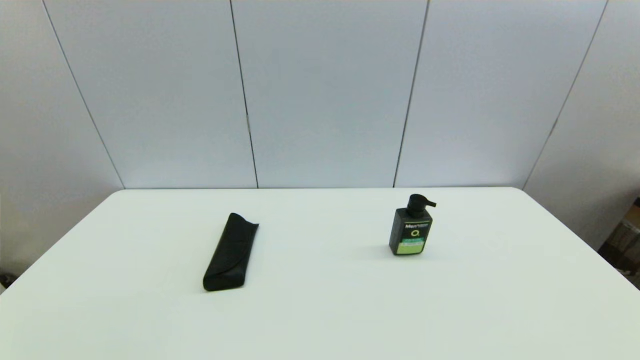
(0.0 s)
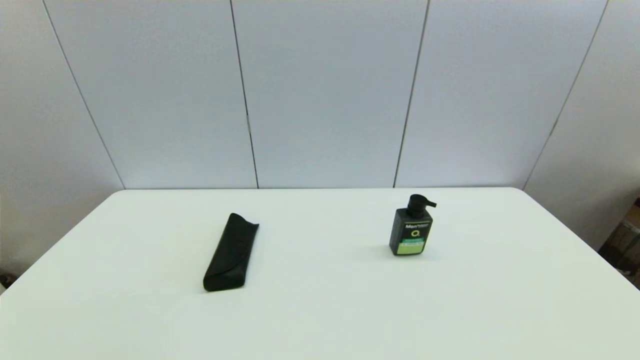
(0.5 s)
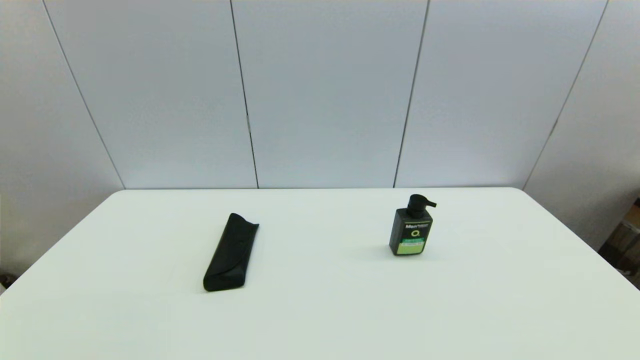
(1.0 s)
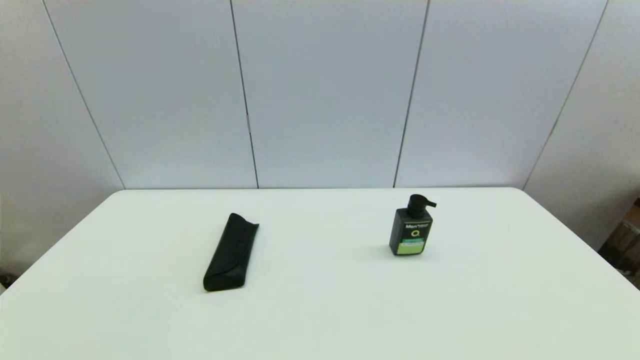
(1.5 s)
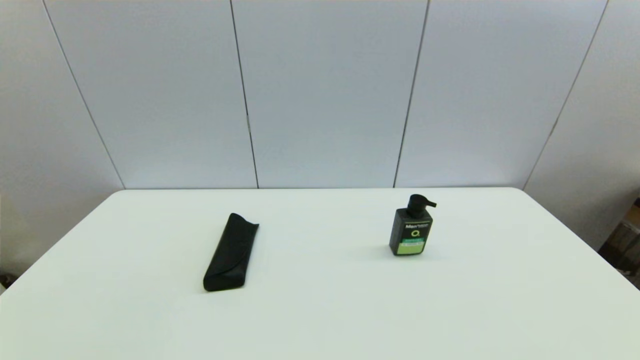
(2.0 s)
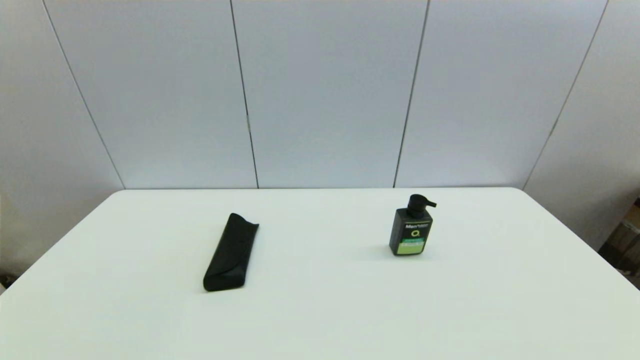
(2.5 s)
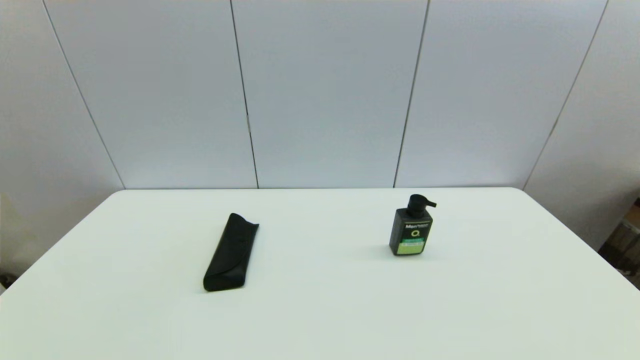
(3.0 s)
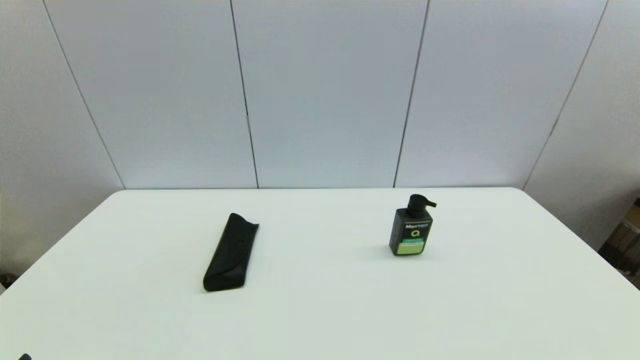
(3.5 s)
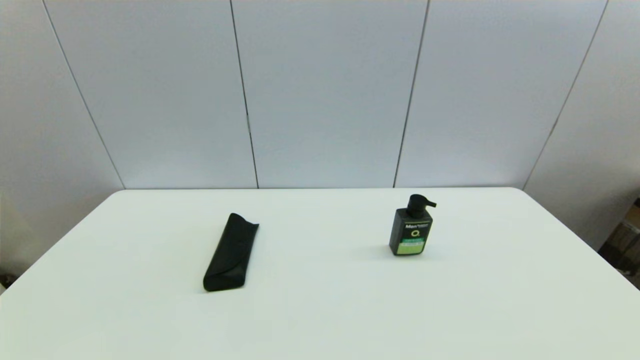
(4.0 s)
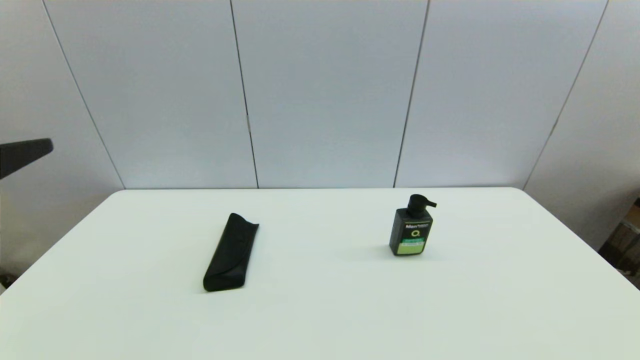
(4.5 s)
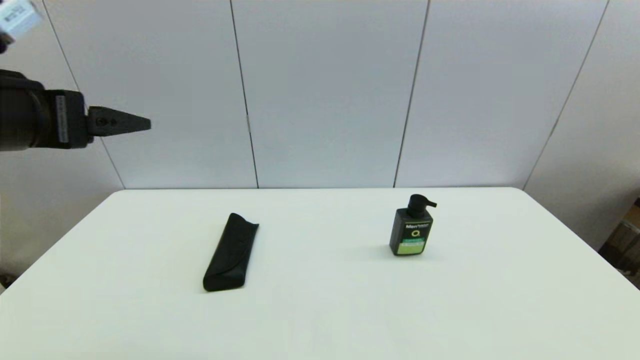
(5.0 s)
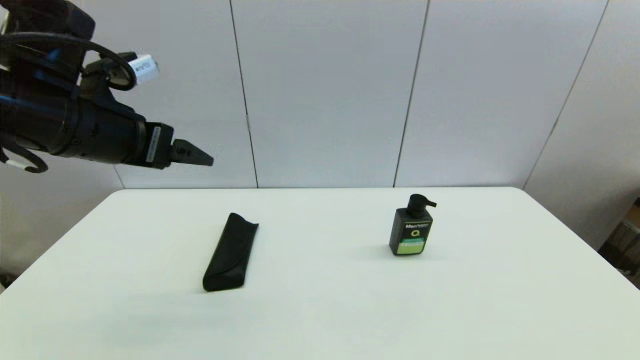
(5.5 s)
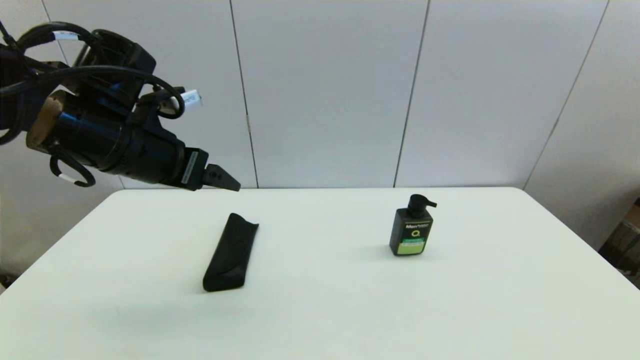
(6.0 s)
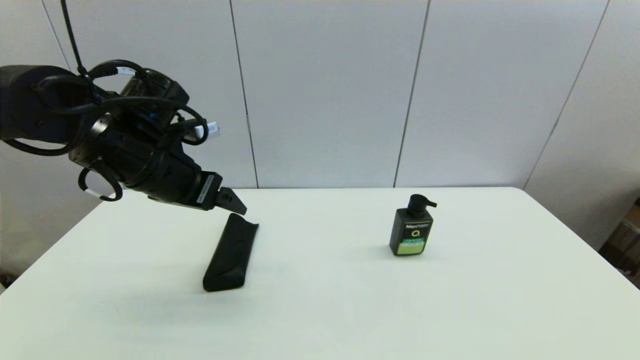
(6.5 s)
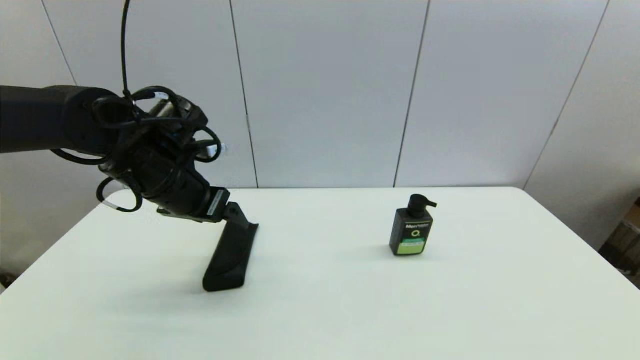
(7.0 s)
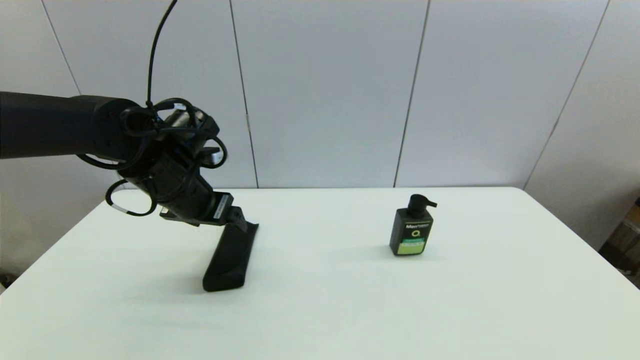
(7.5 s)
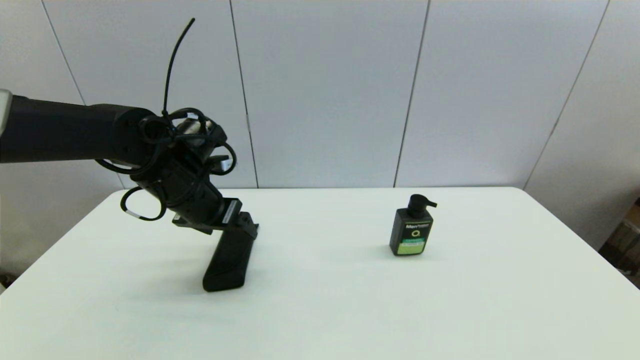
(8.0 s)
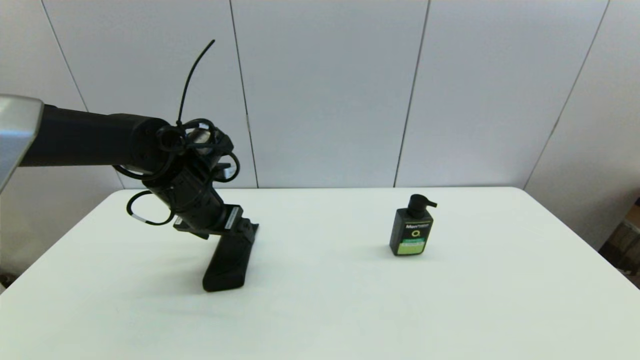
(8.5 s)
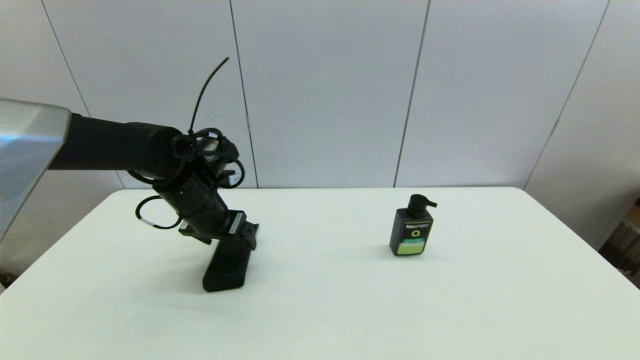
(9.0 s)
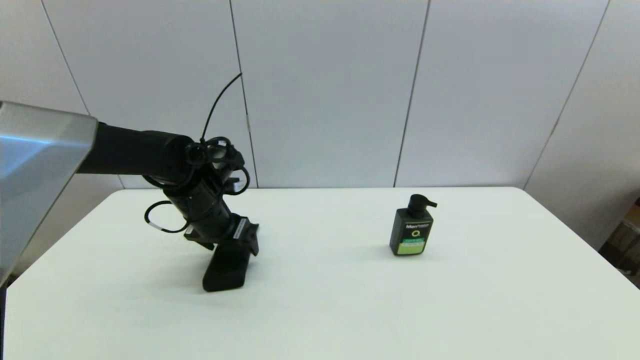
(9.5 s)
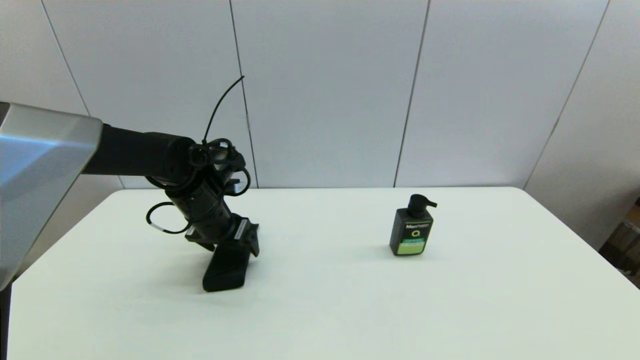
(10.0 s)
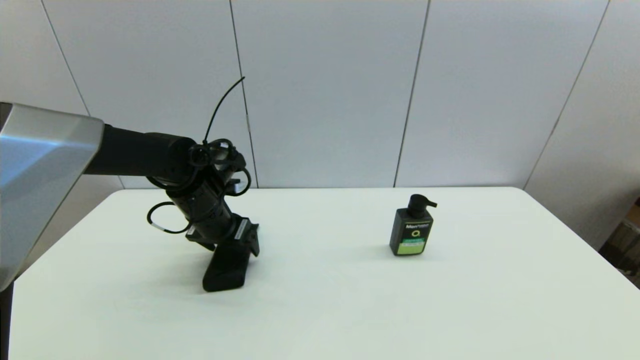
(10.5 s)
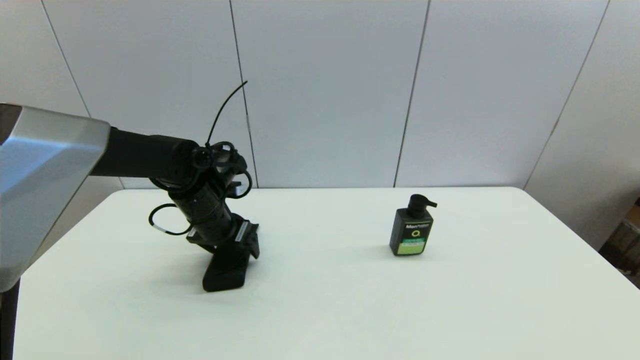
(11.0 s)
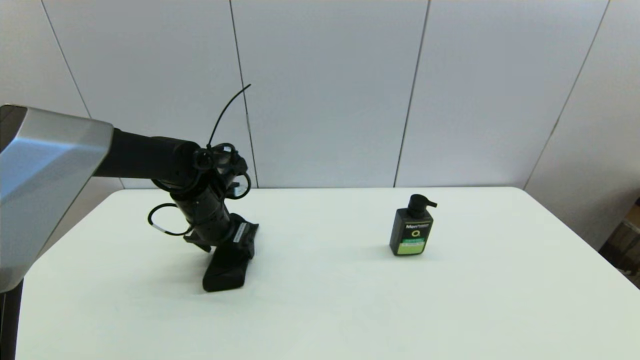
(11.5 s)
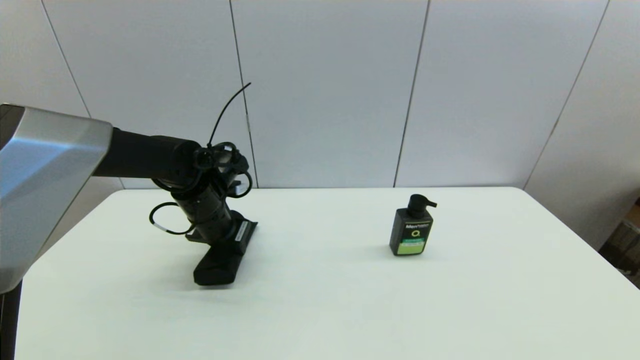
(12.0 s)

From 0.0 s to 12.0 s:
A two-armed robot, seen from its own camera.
Step, from 4.0 s to 11.5 s: Grasp the glasses case with left gripper.
From 0.0 s to 2.0 s: The two grippers keep their place.
From 4.0 s to 6.0 s: The left gripper shifts roughly 25 cm forward.
From 6.0 s to 8.0 s: The left gripper goes about 10 cm downward and forward.
From 8.0 s to 10.0 s: The left gripper goes some 5 cm downward.
From 10.0 s to 12.0 s: The left gripper closes its fingers.

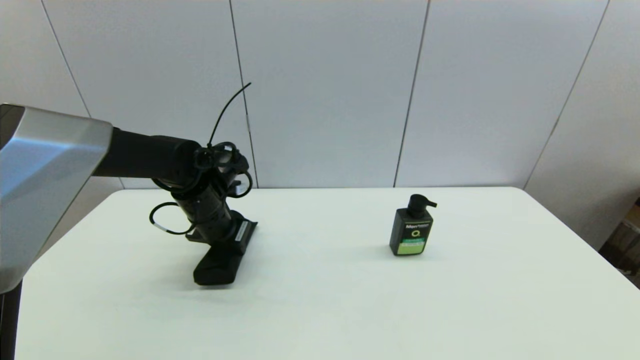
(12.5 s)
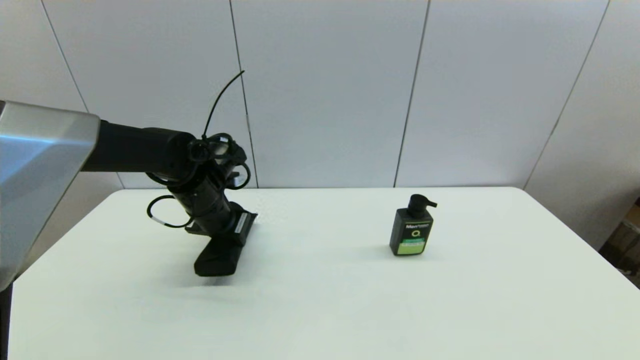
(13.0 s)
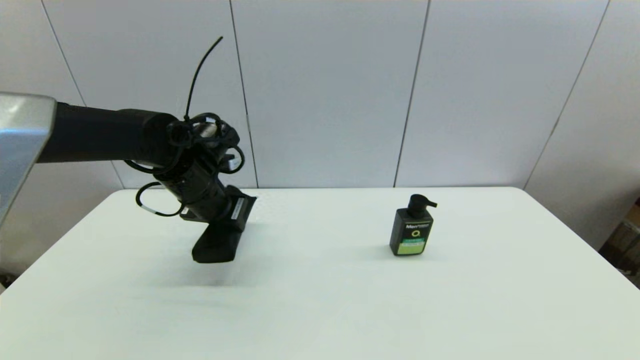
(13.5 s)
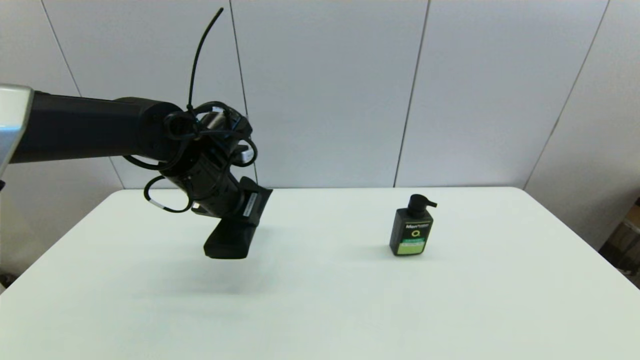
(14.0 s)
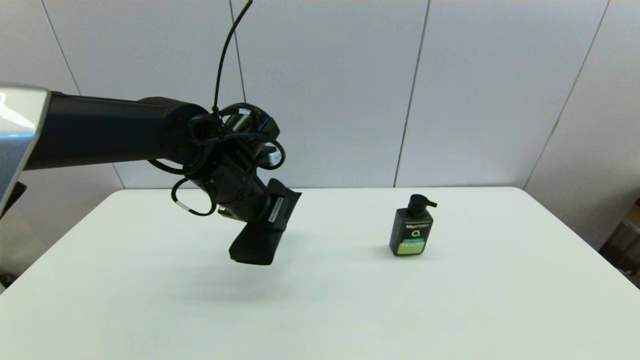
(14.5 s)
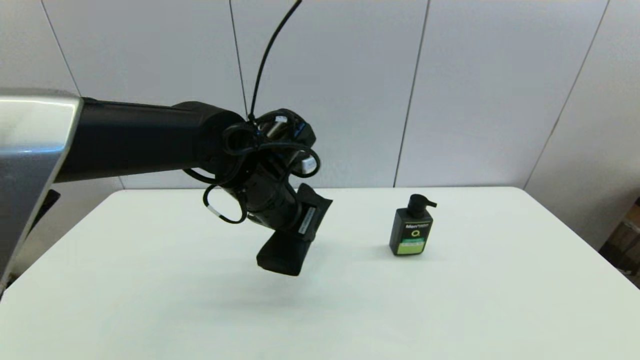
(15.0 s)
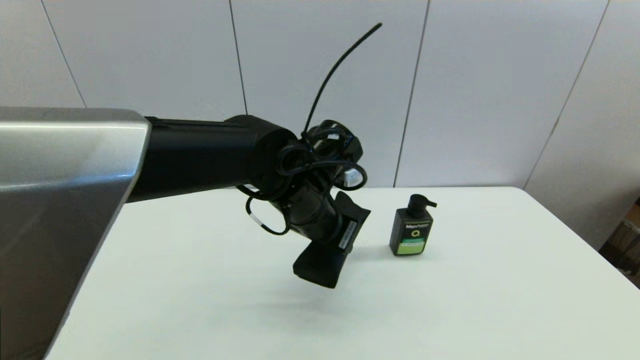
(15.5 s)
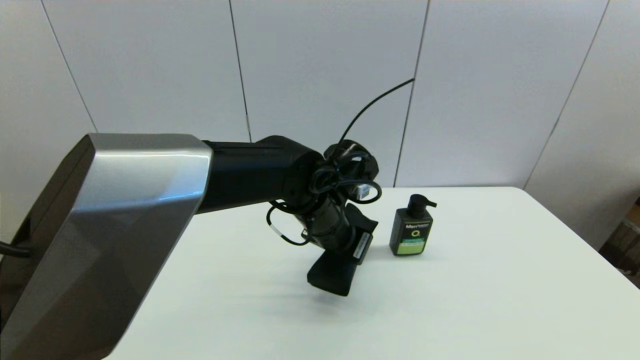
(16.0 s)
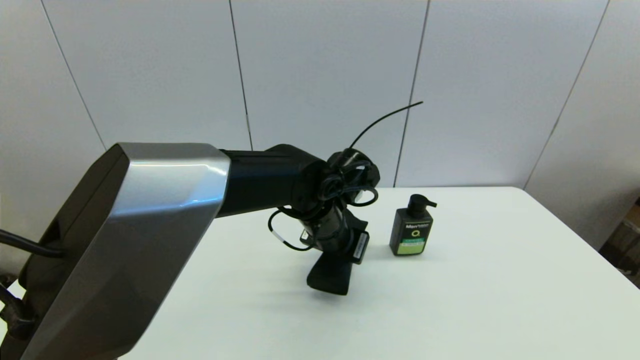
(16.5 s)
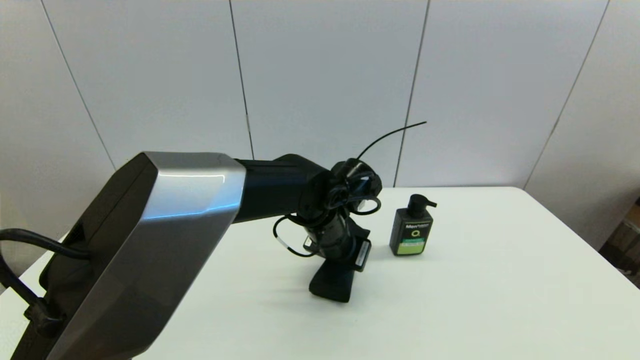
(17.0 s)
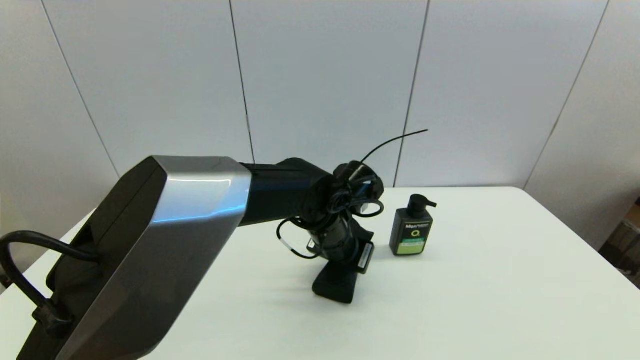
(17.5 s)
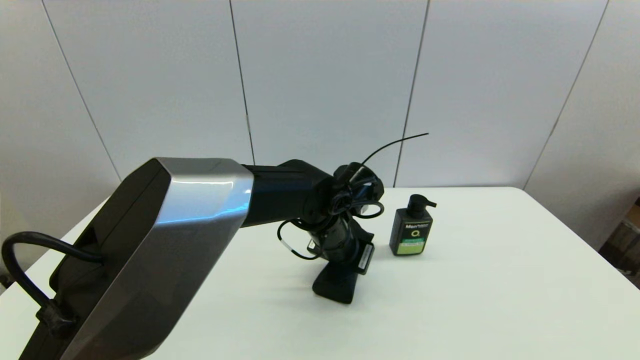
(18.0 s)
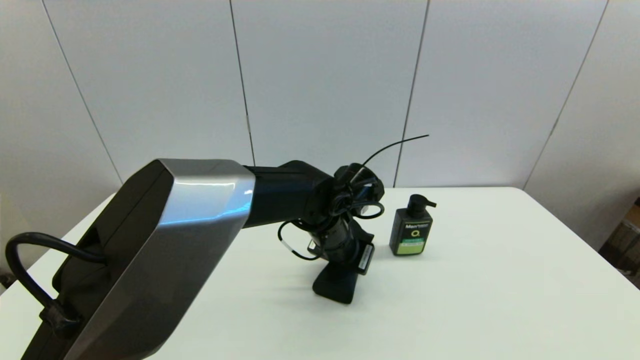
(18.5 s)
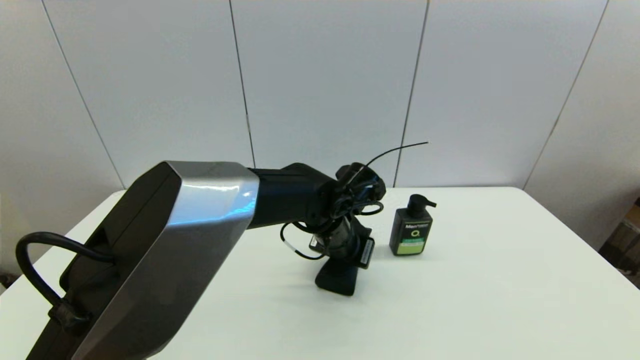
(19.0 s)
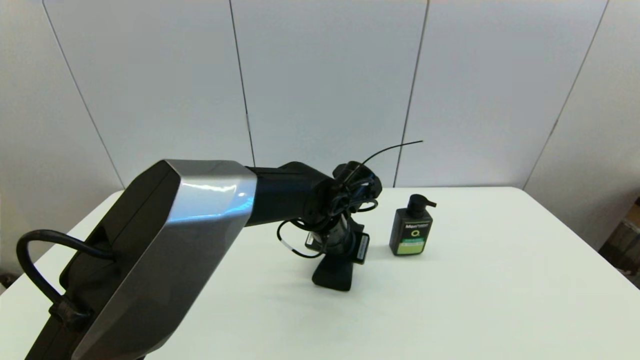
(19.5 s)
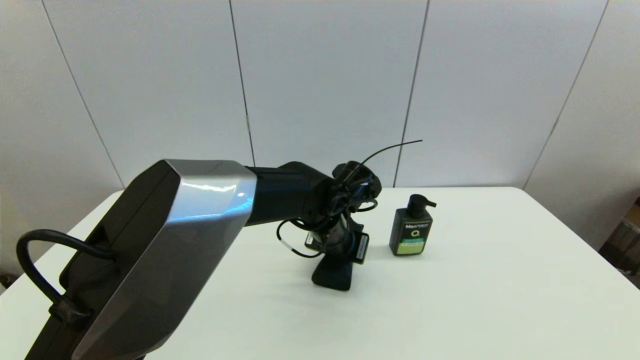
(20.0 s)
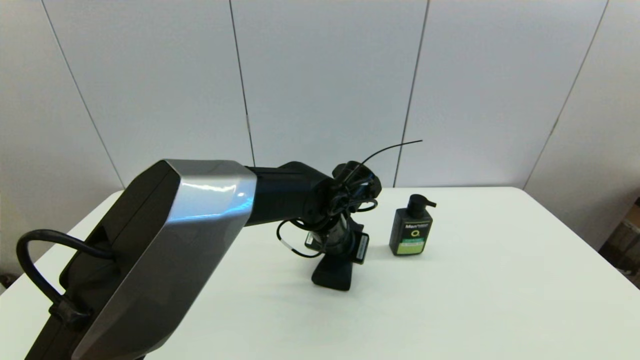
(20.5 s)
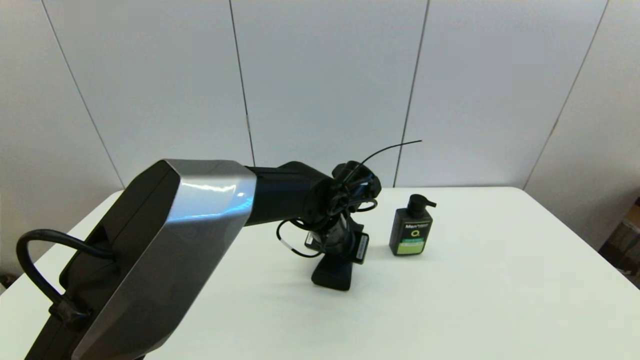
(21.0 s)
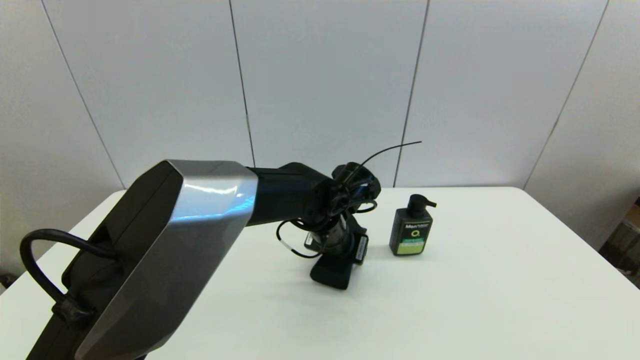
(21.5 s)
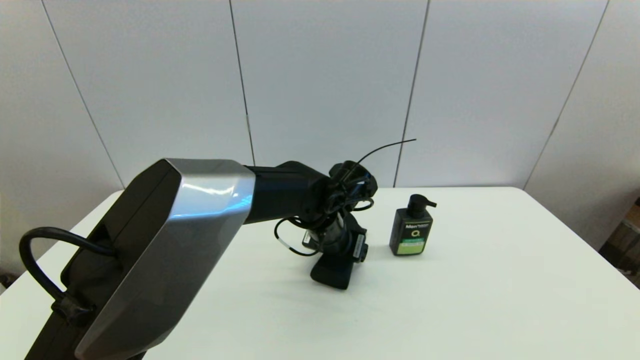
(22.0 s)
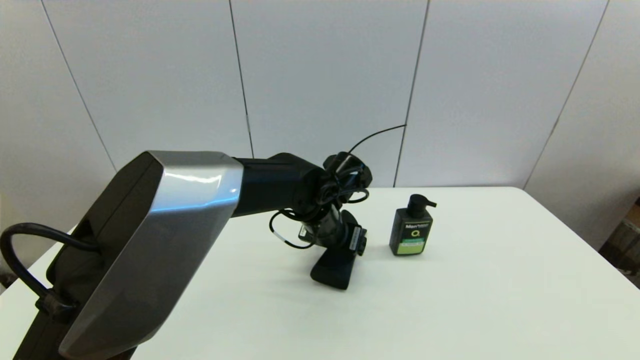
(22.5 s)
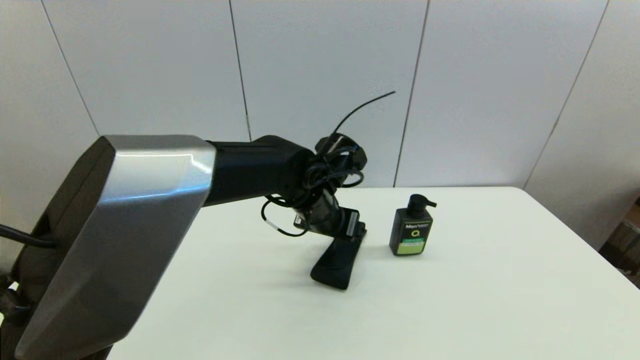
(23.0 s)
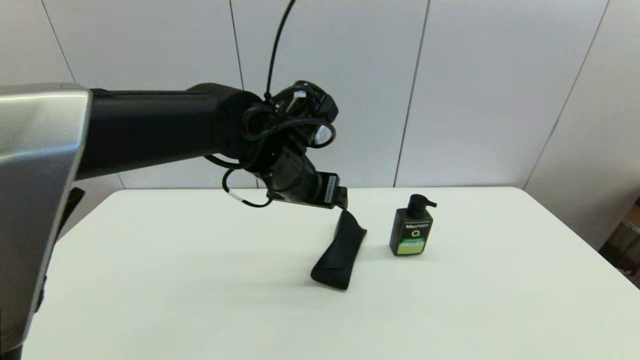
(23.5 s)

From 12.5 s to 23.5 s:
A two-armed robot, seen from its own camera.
Step, from 12.5 s to 21.0 s: Place the glasses case on the table with left gripper.
From 12.5 s to 14.5 s: The left gripper moves upward and to the right, about 10 cm.
From 14.5 s to 16.0 s: The left gripper travels to the right by some 10 cm.
From 16.0 s to 20.0 s: The grippers move only a little.
From 20.0 s to 21.5 s: The left gripper opens its fingers.
From 21.5 s to 23.5 s: The left gripper is displaced upward and to the left by roughly 15 cm, and opens up.
